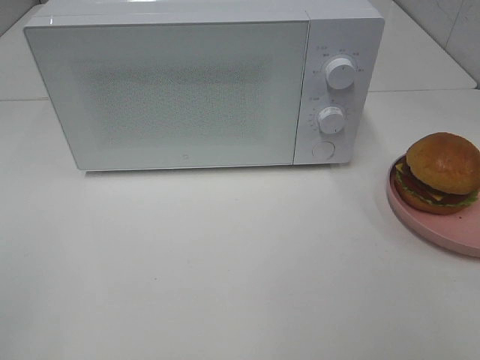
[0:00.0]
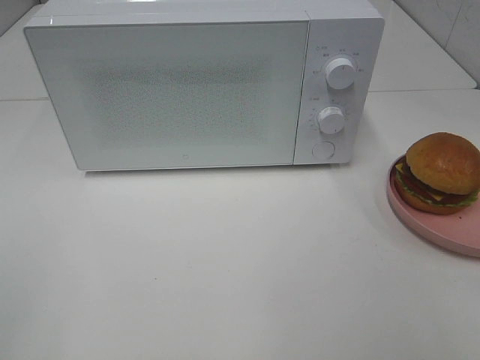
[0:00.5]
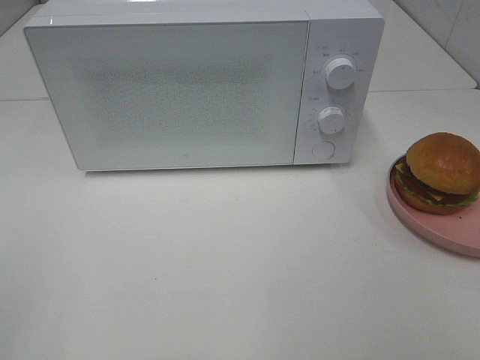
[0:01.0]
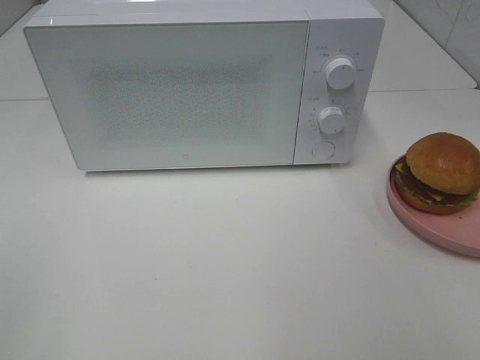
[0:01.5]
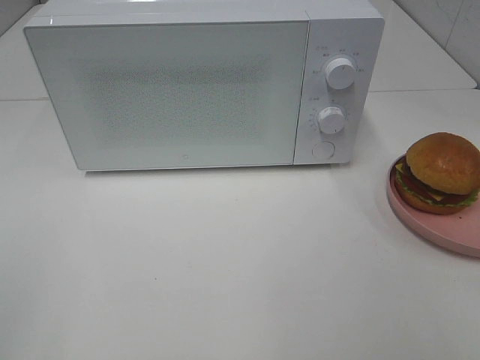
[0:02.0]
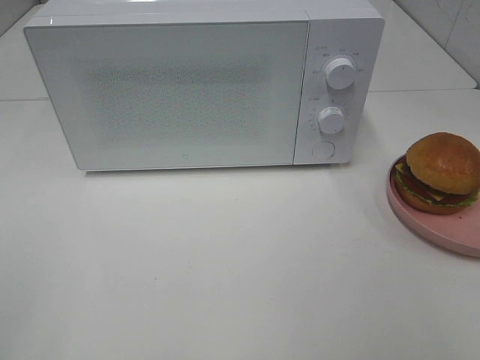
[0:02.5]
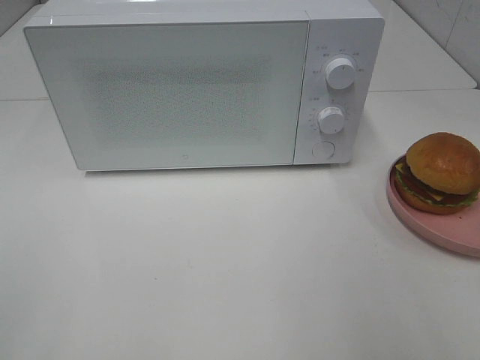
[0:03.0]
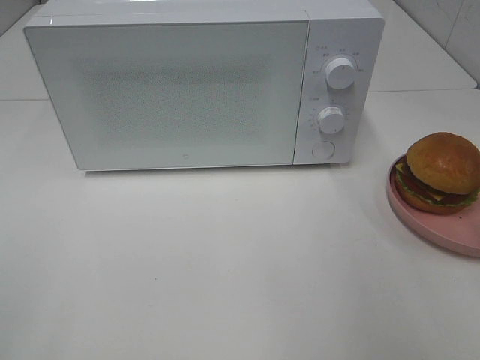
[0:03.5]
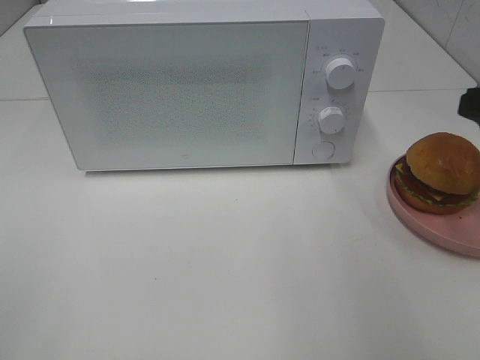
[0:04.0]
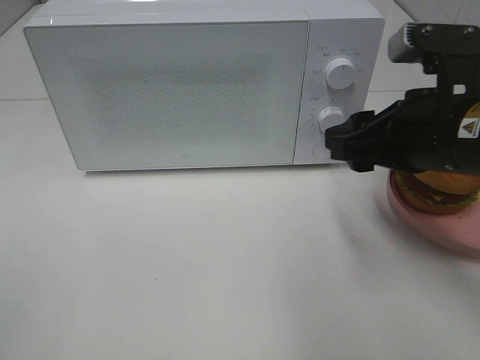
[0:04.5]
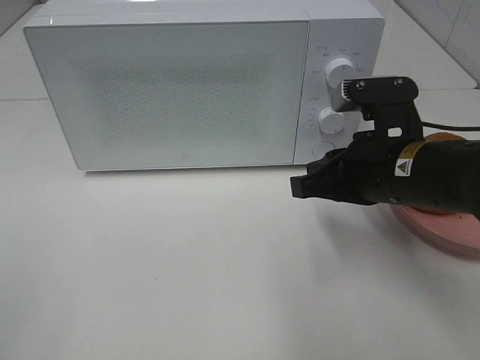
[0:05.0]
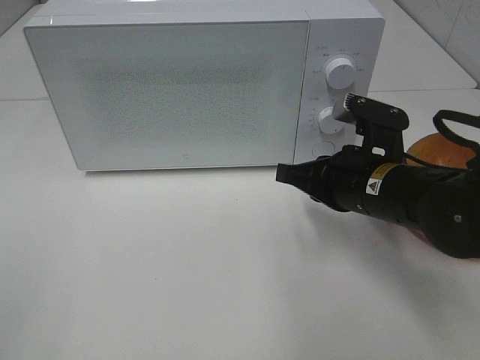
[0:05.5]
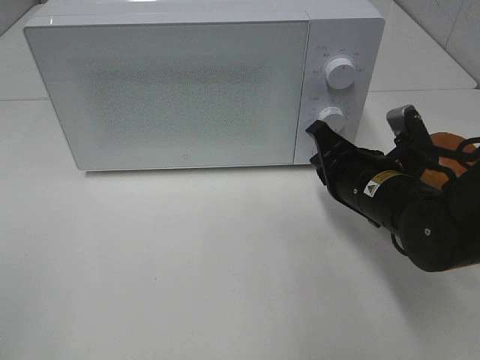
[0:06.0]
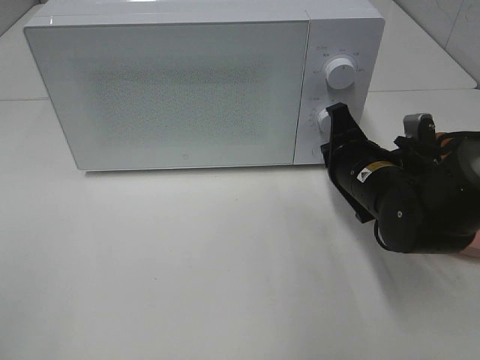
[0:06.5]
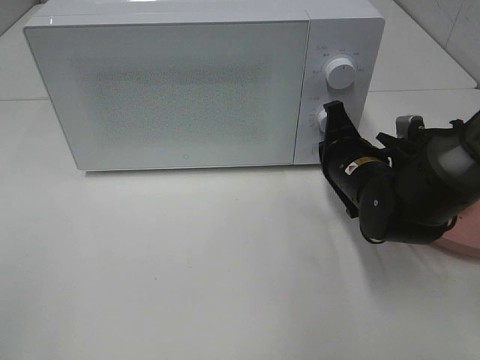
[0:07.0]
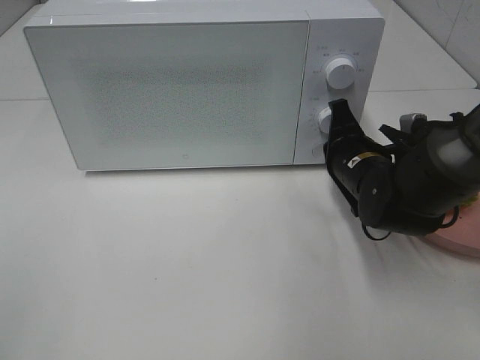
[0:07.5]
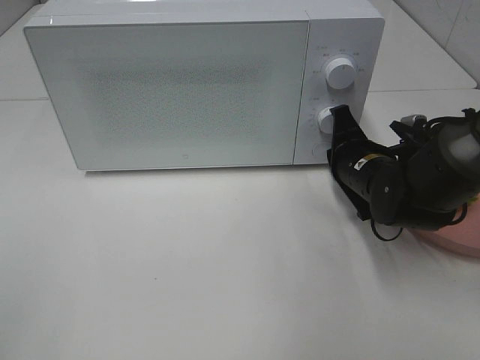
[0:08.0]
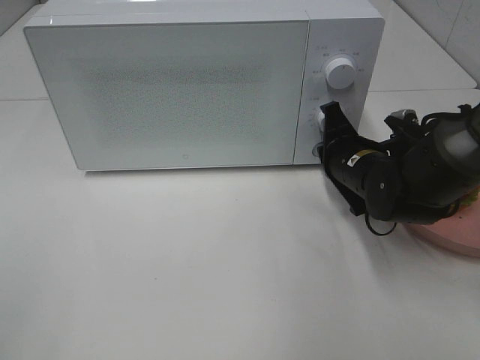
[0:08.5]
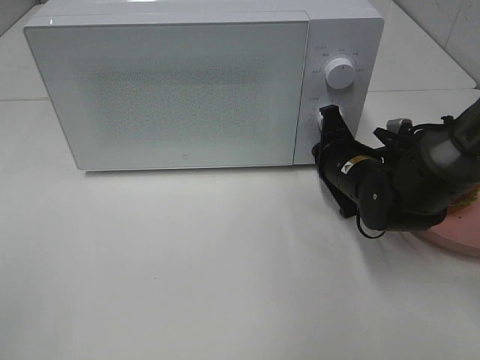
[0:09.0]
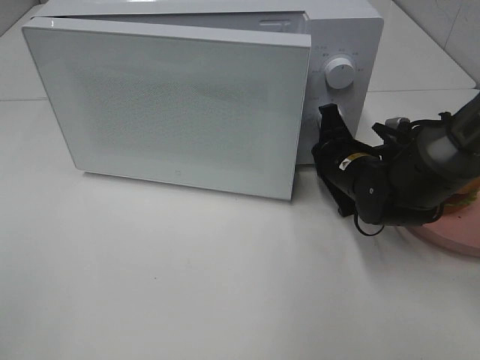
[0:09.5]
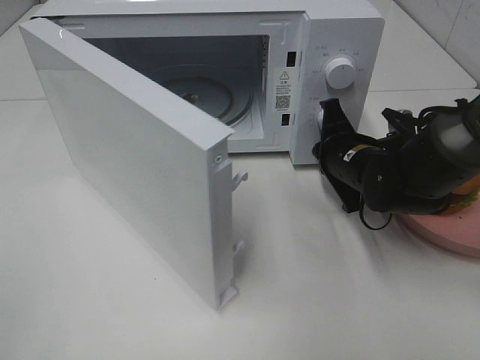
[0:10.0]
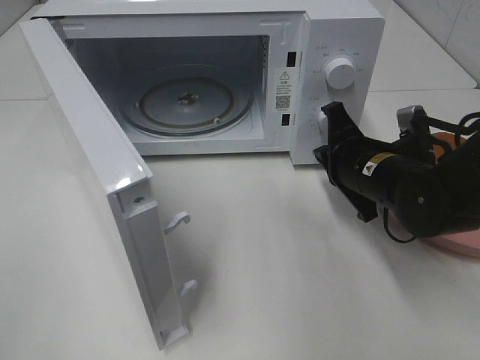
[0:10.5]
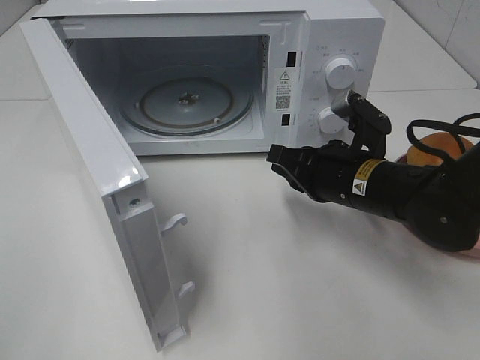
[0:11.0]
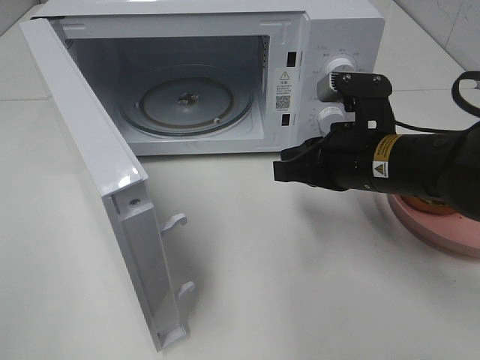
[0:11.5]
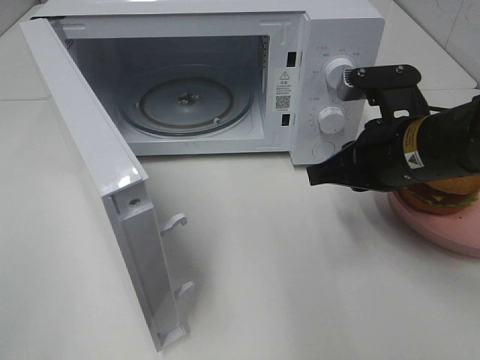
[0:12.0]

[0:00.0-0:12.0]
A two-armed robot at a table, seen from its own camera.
Task of the whole recording: Heat the burger.
Step, 0:00.0 to 0:10.0: Right hand: press the switch.
0:00.0 to 0:02.0: The two grippers keep their place.
0:04.0 to 0:06.0: The right gripper is displaced downward, to the left and forward by roughly 20 cm, and closes its fingers.
0:06.0 to 0:08.0: The right gripper goes approximately 5 cm forward.
0:10.0 to 0:12.0: The right gripper heads upward and backward, covering roughly 10 cm.

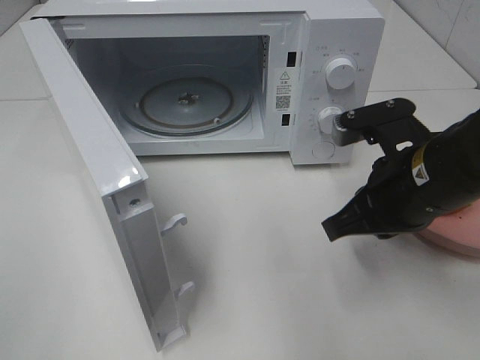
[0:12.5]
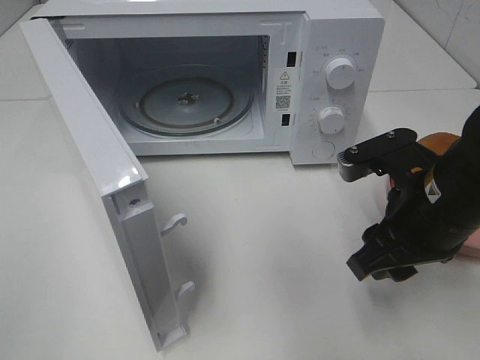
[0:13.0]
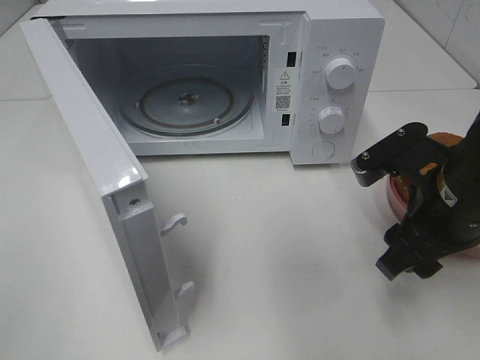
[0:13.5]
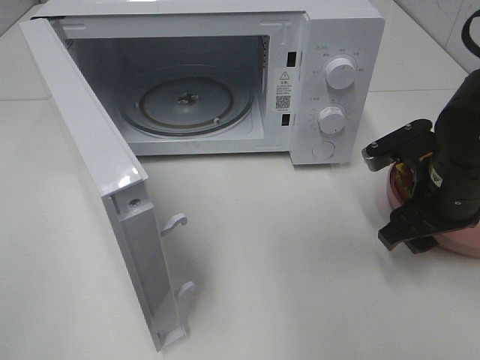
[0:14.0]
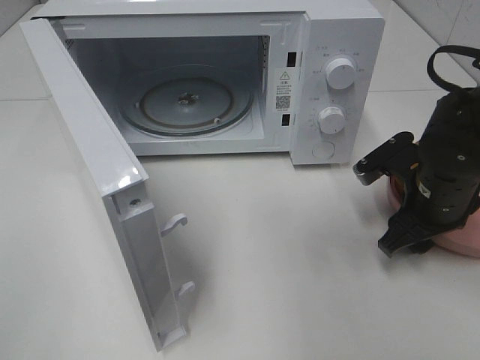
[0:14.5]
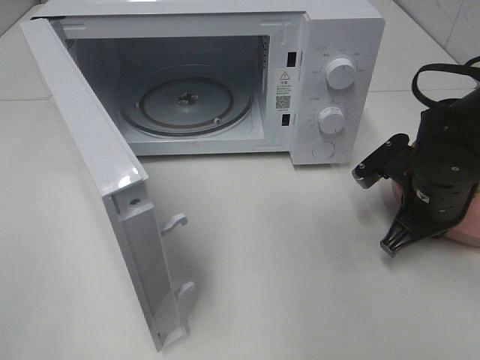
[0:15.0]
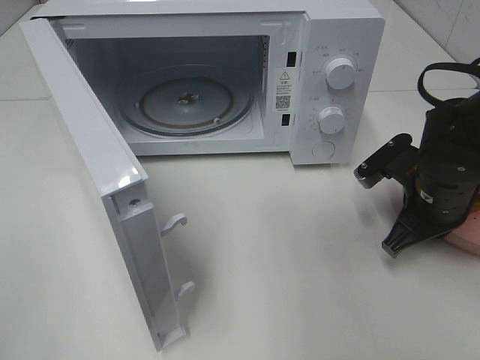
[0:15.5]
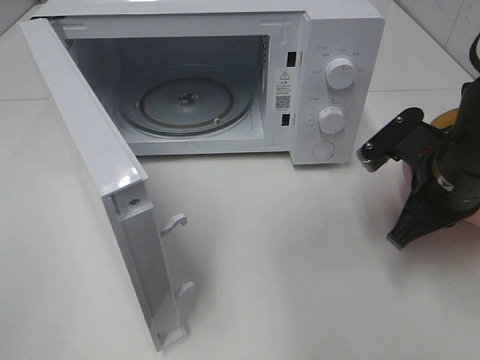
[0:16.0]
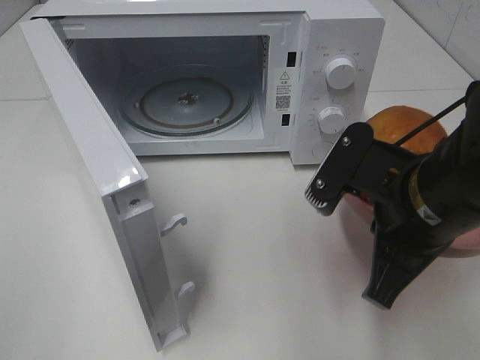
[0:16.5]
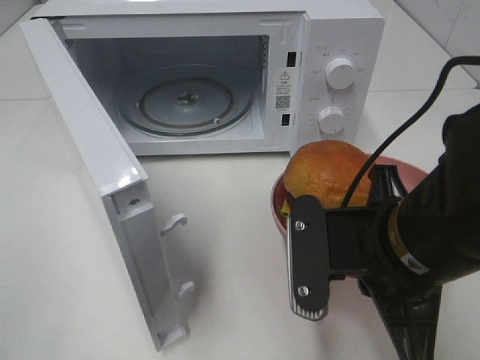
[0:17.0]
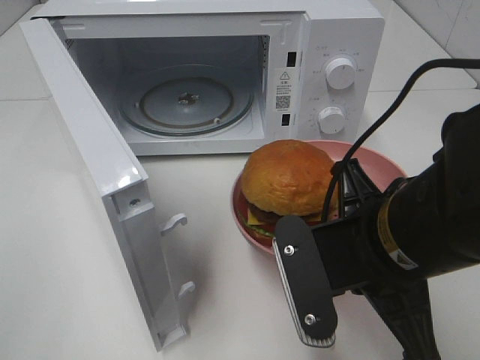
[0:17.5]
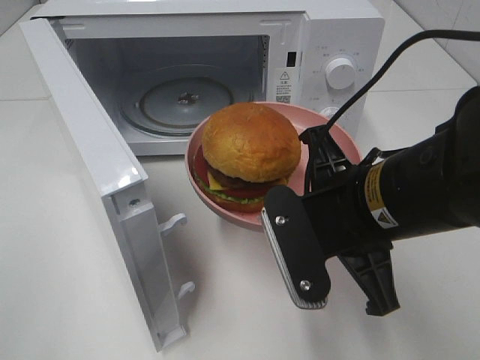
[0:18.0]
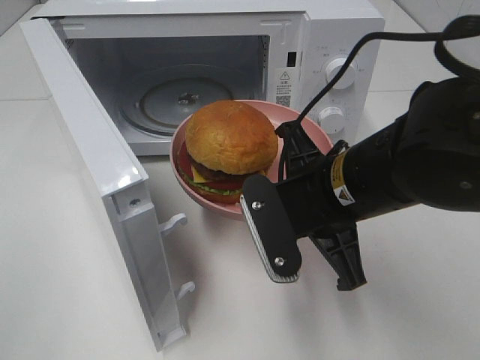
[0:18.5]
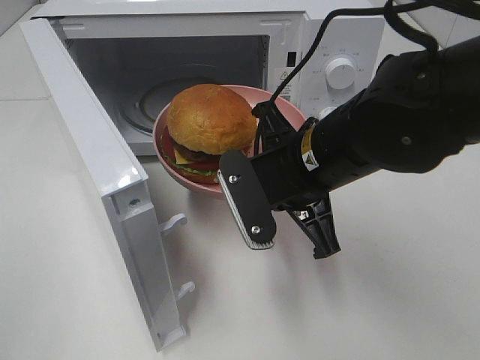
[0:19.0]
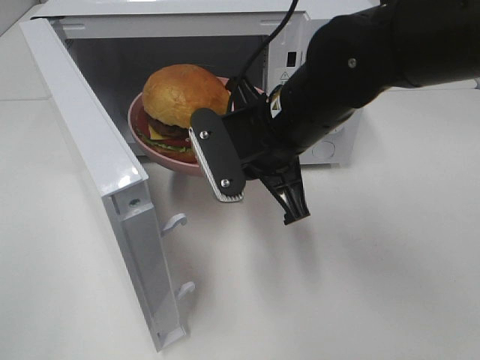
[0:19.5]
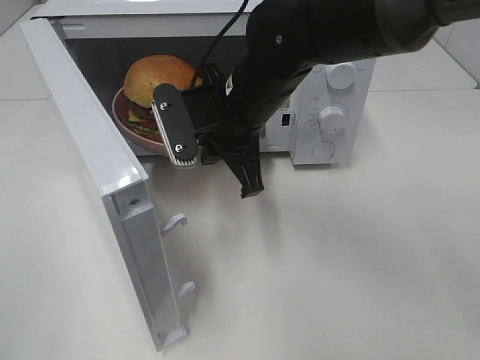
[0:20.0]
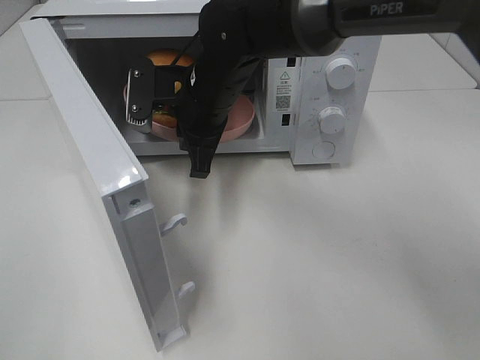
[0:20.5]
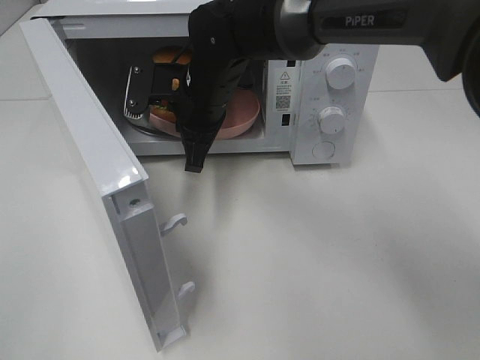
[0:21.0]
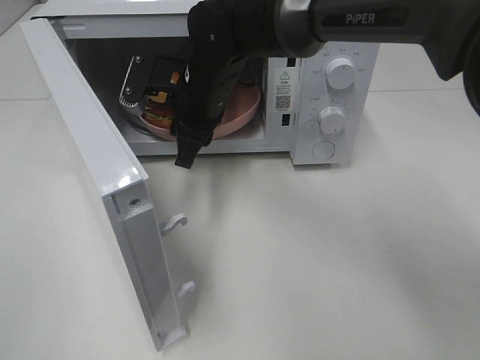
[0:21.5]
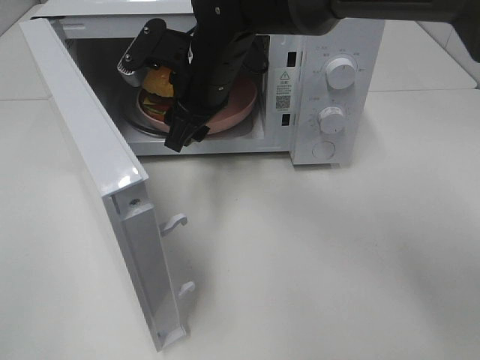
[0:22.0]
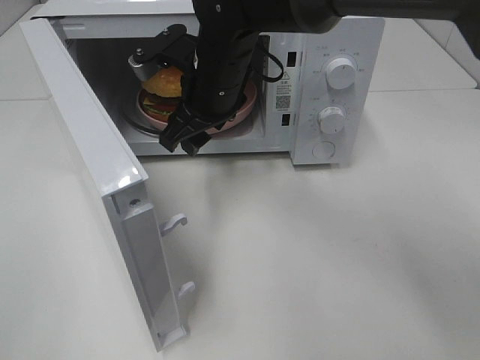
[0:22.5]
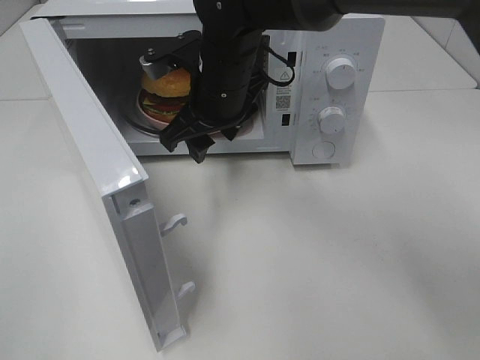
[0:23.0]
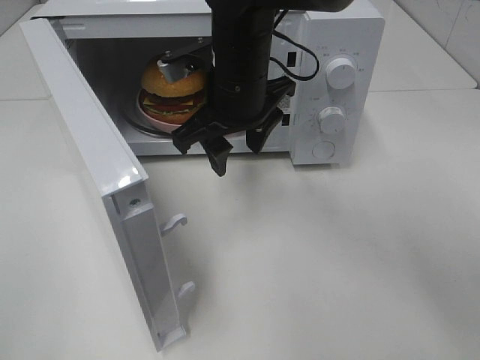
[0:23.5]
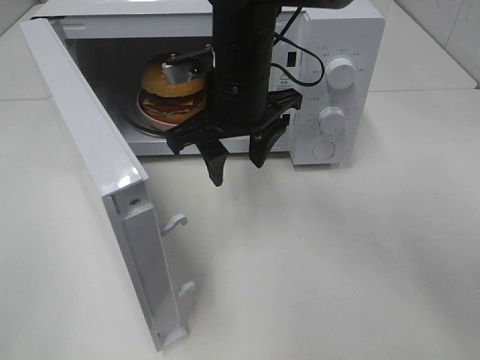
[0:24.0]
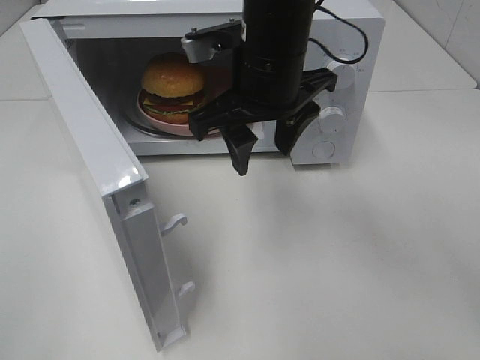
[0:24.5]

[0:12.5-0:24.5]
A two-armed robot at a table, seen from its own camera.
Task of the whole recording: Heat the burger.
Step, 0:12.5 to 0:15.0: Right hand: grab the plate with the hamburger.
Step, 0:15.5 to 0:21.5: Right hand: place the plate in the microwave.
0:12.5 to 0:14.5: The right gripper goes about 10 cm downward, forward and to the right, and opens its fingers.
0:14.5 to 0:16.5: The right gripper shifts some 15 cm backward, upward and to the left, and closes its fingers.
0:16.5 to 0:18.5: The right gripper is displaced to the left by about 5 cm.
0:18.5 to 0:20.5: The right gripper goes roughly 20 cm forward and to the left.
0:20.5 to 0:22.5: The right gripper opens.
0:22.5 to 0:24.5: The right gripper heads backward, upward and to the right, covering about 10 cm.

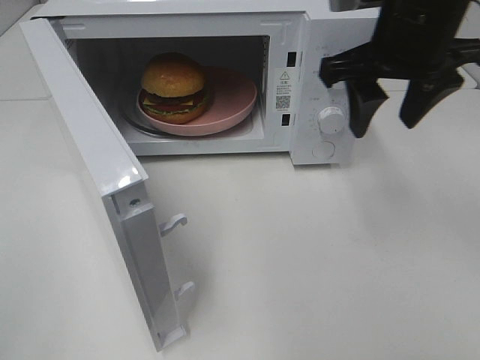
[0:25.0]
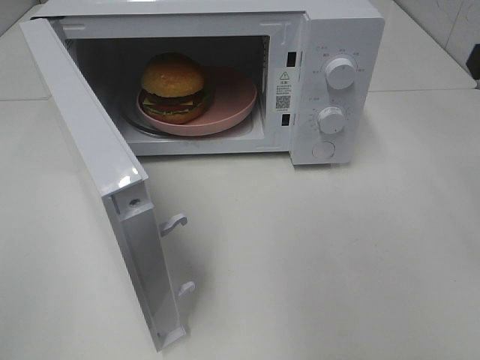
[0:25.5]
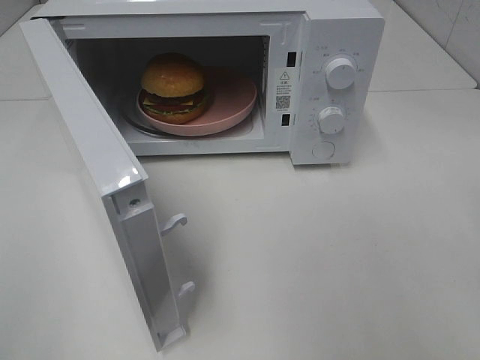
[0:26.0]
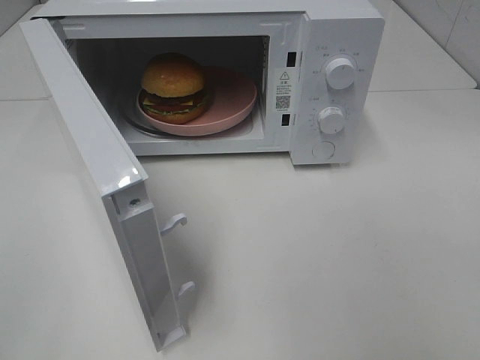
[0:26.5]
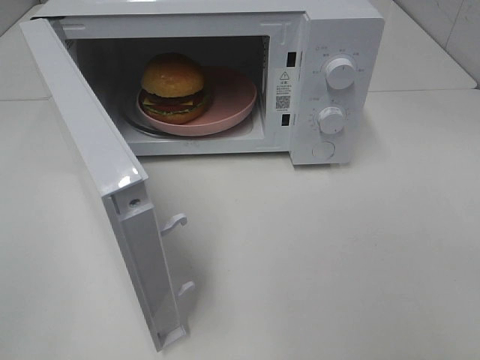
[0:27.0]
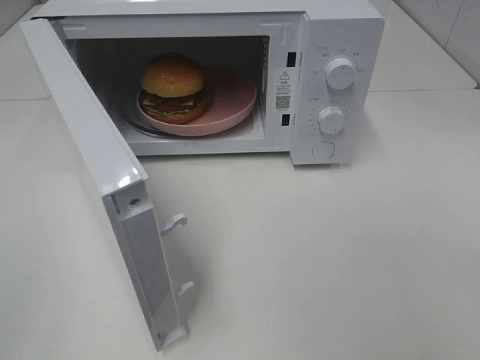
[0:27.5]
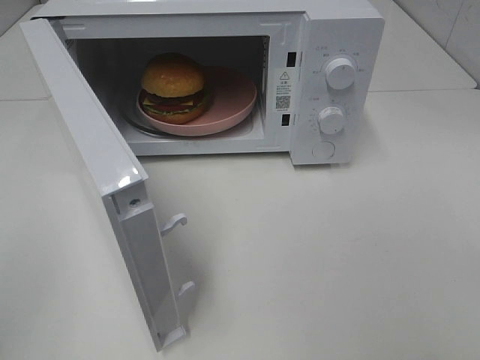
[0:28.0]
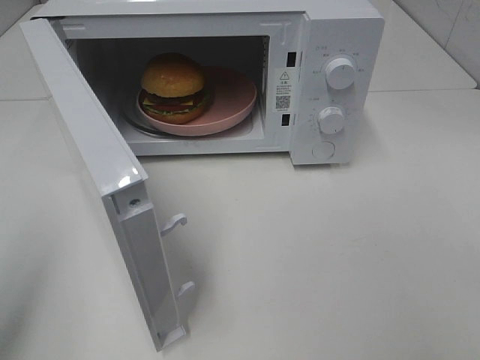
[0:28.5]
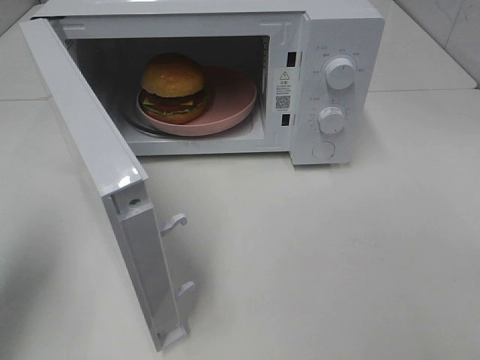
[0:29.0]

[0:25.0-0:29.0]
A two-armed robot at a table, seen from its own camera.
Task of the whole recording: Heat the burger.
0:25.0 to 0:27.0: The right gripper travels backward and to the right by some 30 cm.
0:27.0 to 0:29.0: The left gripper goes some 20 cm forward.
